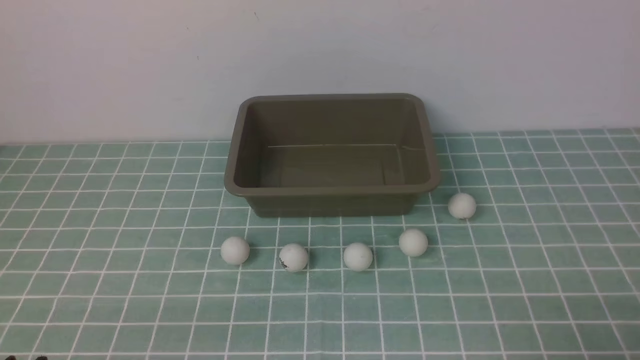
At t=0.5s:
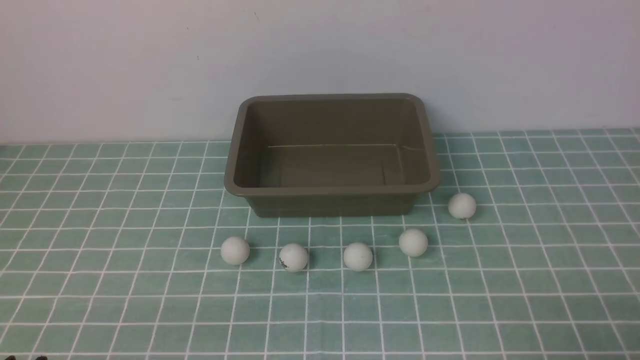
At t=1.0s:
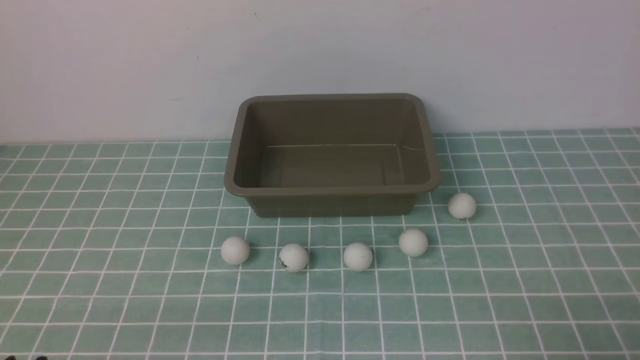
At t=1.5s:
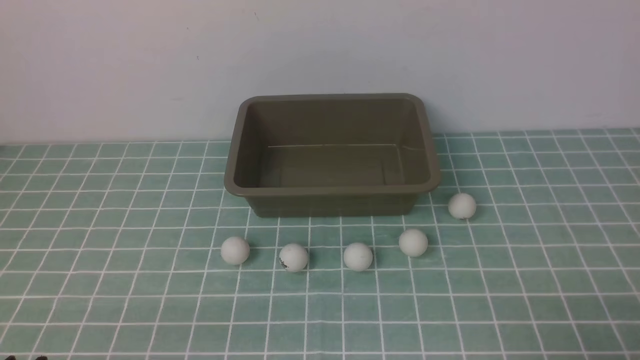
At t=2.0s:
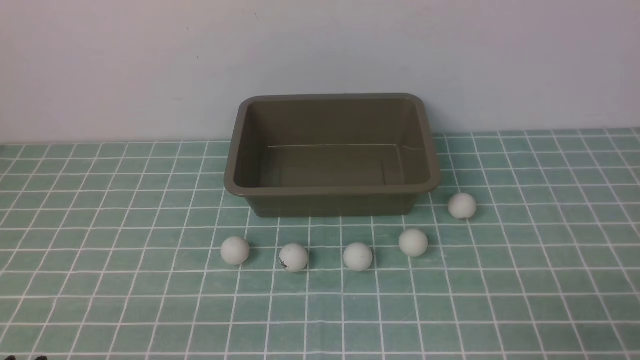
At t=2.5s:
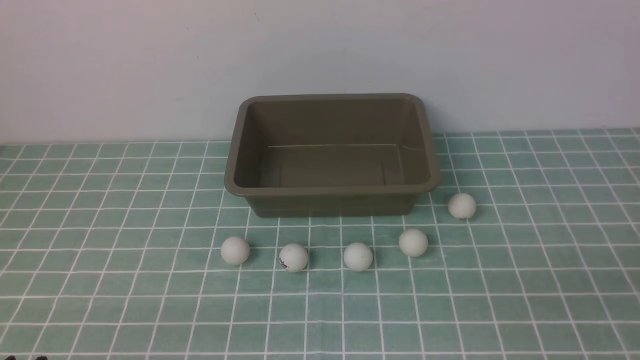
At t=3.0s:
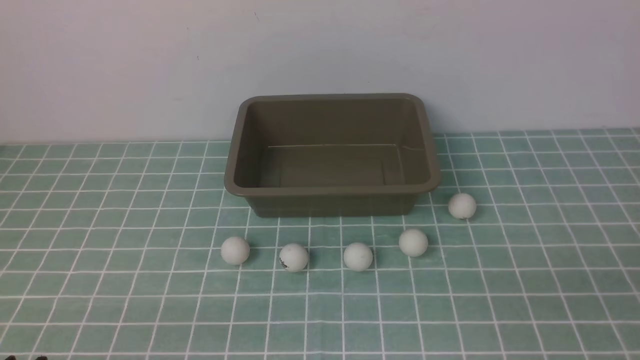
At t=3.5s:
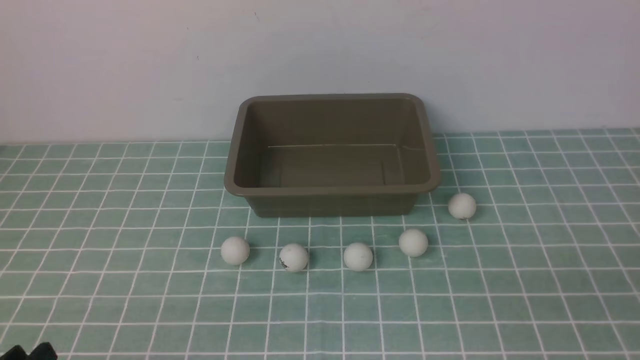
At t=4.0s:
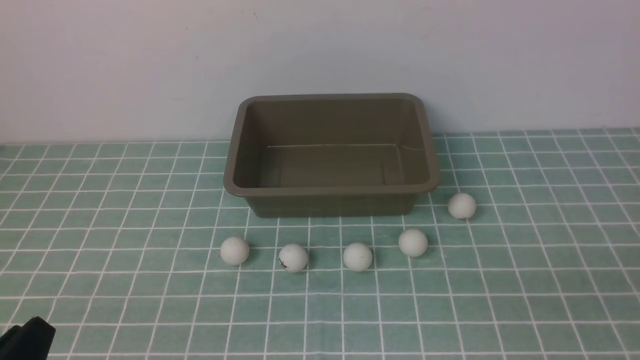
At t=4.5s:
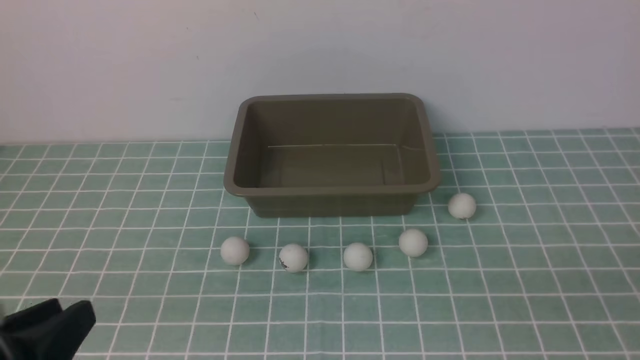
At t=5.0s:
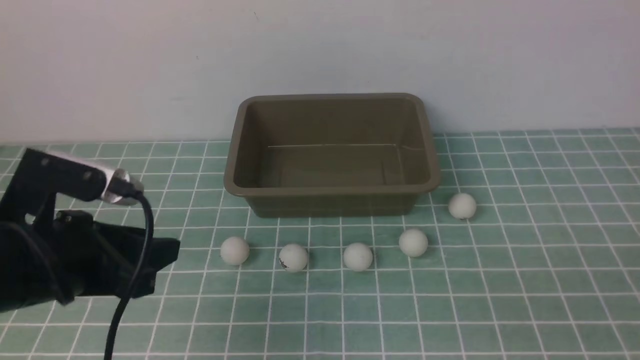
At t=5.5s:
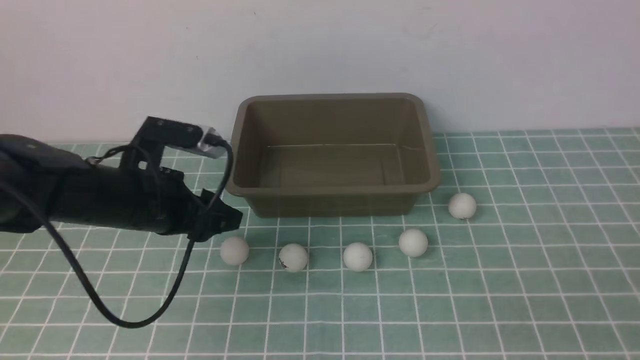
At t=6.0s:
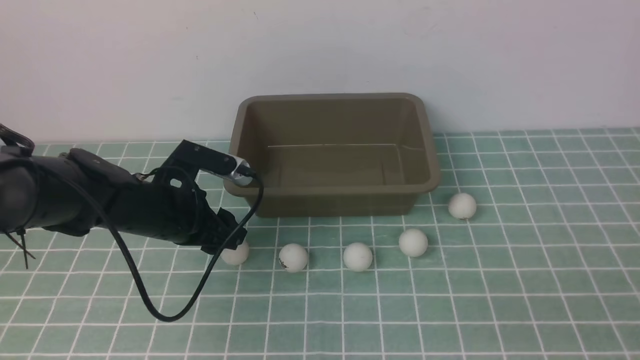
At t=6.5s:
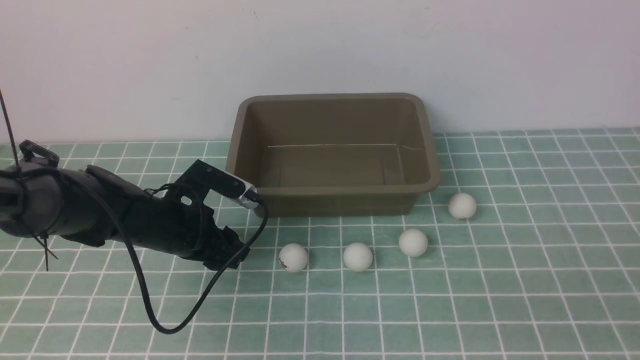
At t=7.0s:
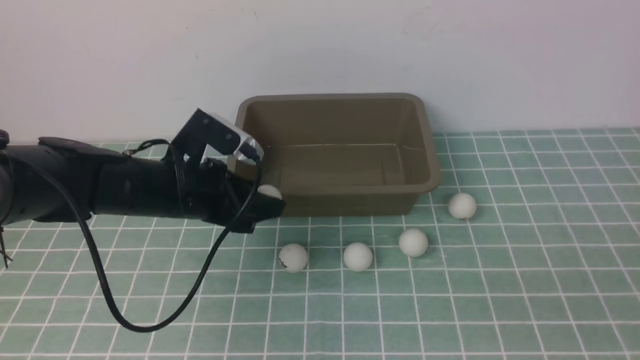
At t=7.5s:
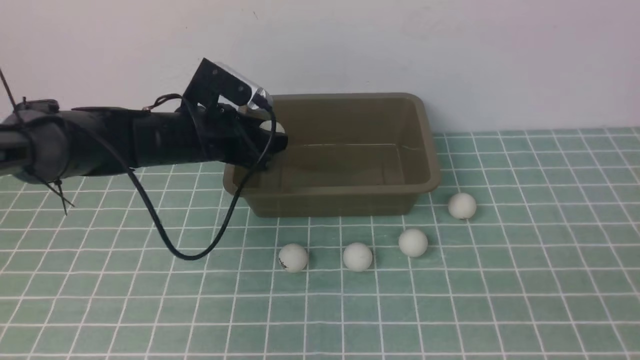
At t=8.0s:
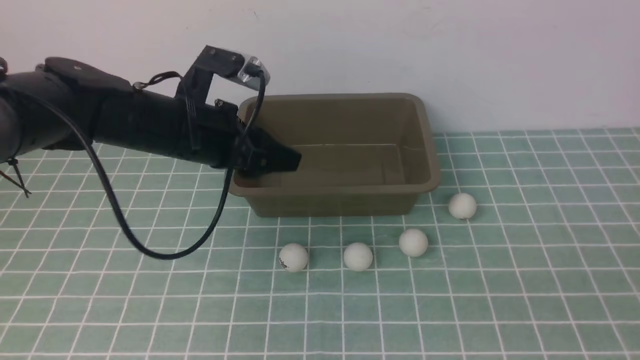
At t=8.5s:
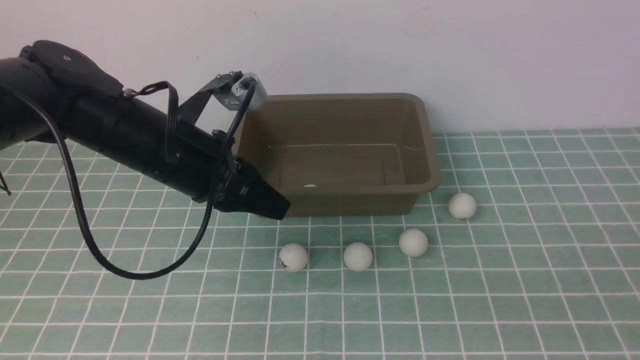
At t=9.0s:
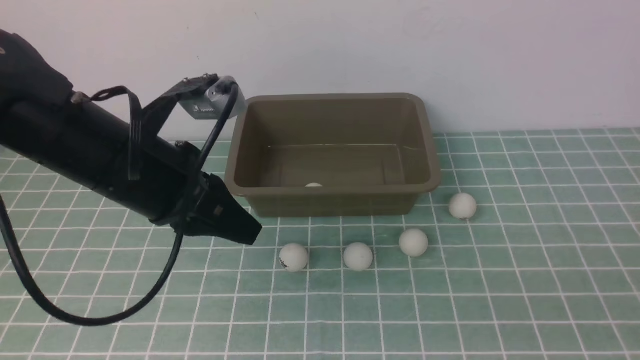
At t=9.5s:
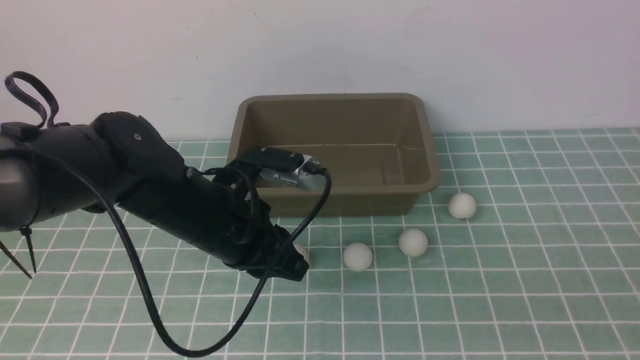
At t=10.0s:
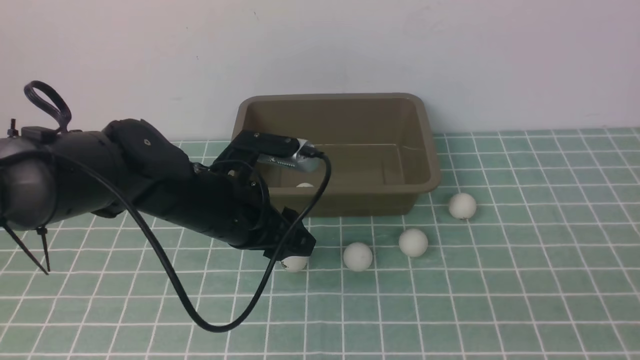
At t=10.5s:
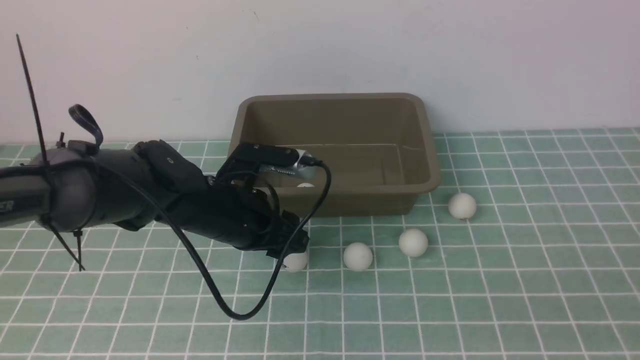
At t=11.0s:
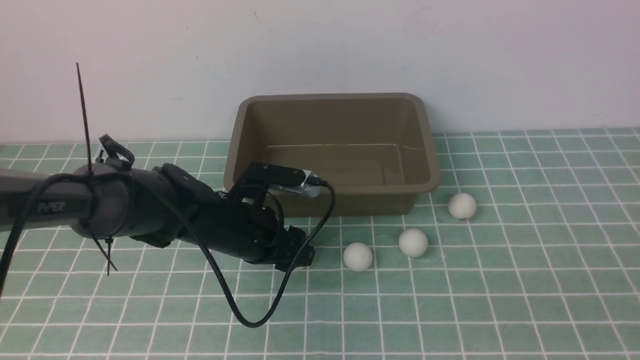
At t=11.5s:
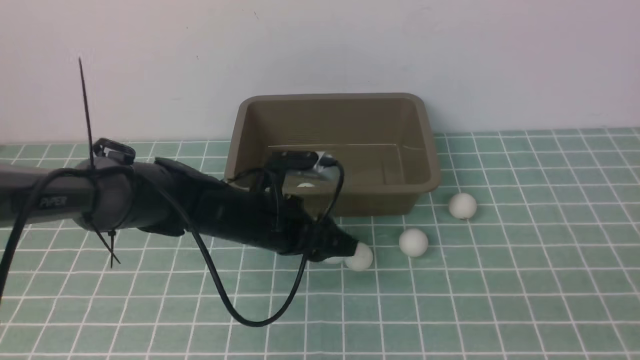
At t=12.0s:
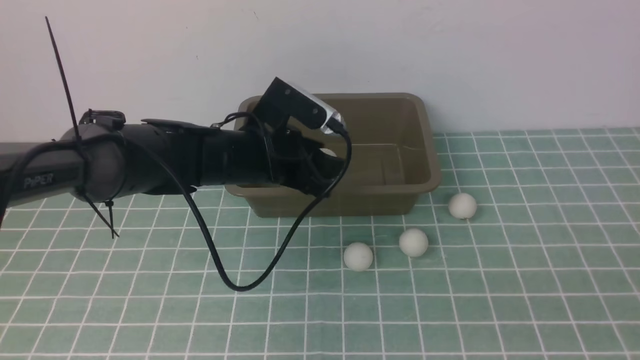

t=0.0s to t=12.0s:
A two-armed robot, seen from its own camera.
Step, t=0.0s to t=6.5s: use the left arm to clamp the table tennis ball closest to it.
Step, t=7.0s to t=7.5s: use the left arm to put the table tennis ball into the box.
Step, t=8.0s to t=11.5s: use the left arm to clamp the table tennis ball closest to it.
t=4.0s to t=6.0s: The left gripper heads forward, covering some 30 cm.
t=6.0s to t=8.0s: The left gripper moves upward, about 10 cm.
t=8.0s to t=10.0s: The left gripper travels downward by some 5 cm, and closes and opens again.
t=10.0s to t=12.0s: The left gripper is displaced forward by about 5 cm.

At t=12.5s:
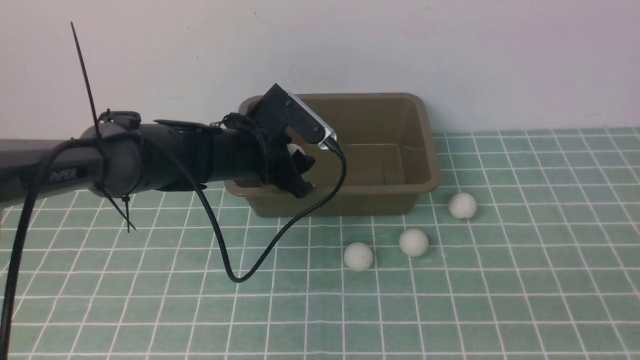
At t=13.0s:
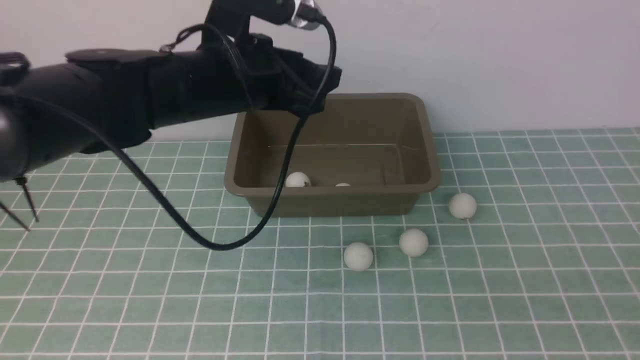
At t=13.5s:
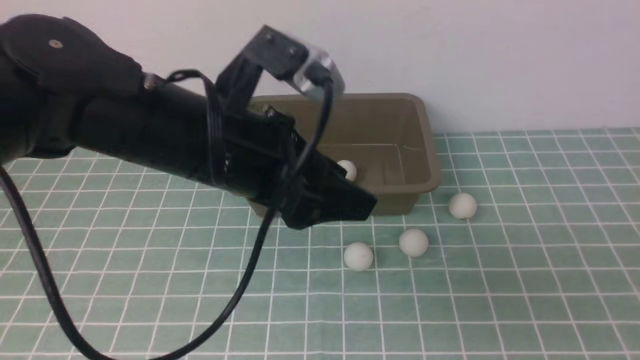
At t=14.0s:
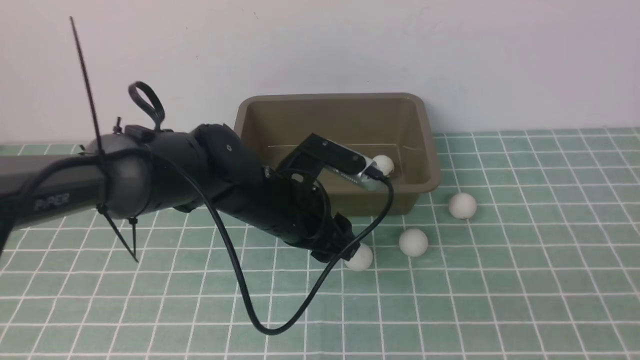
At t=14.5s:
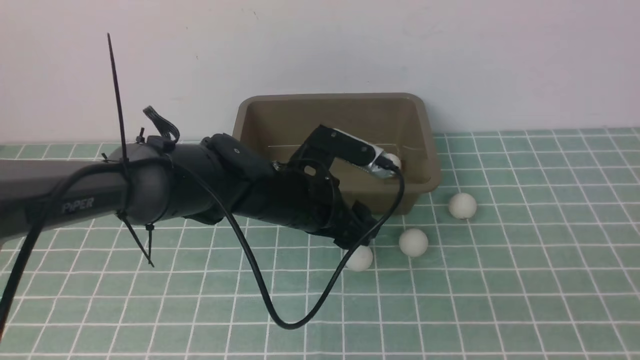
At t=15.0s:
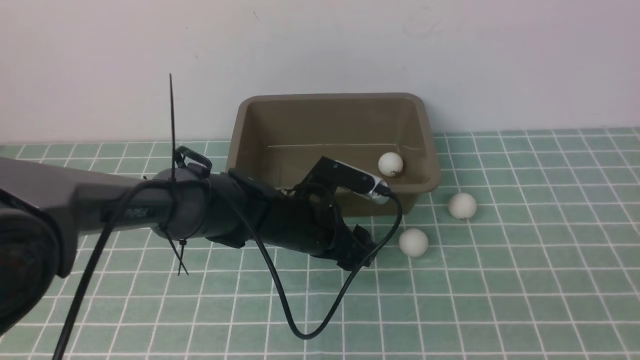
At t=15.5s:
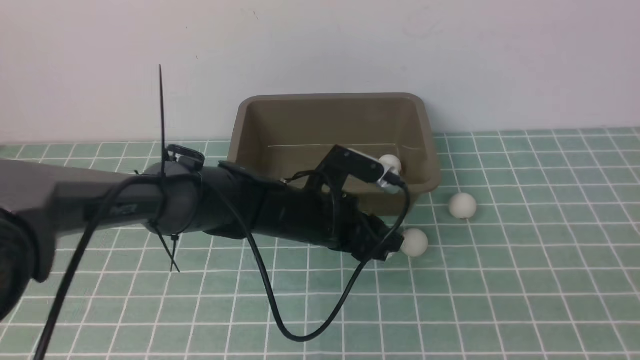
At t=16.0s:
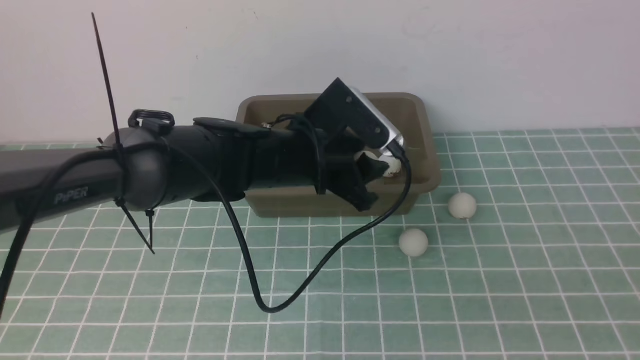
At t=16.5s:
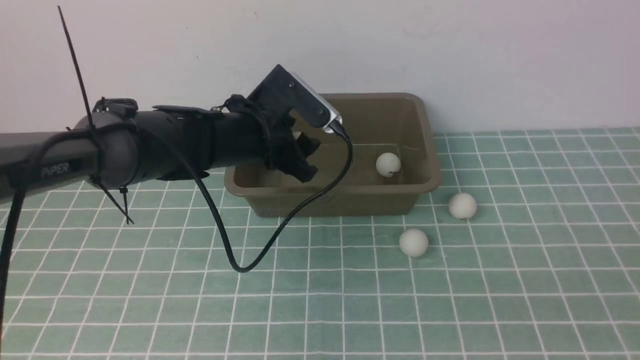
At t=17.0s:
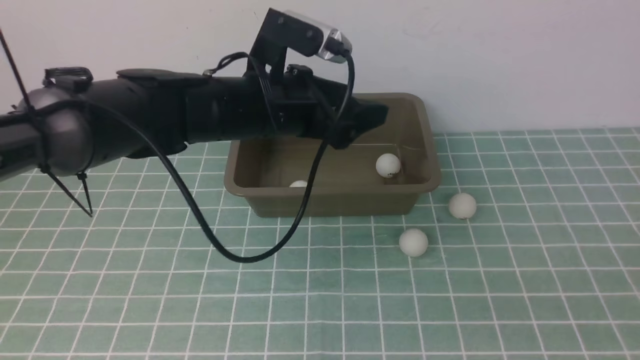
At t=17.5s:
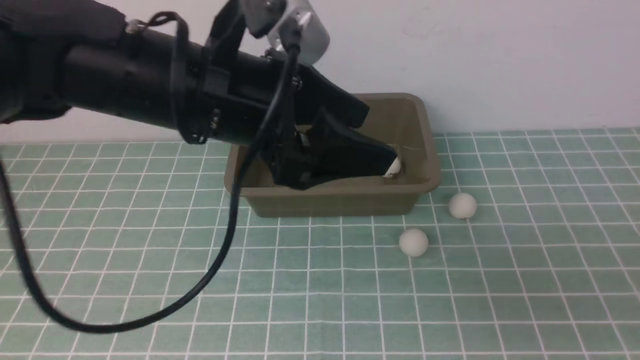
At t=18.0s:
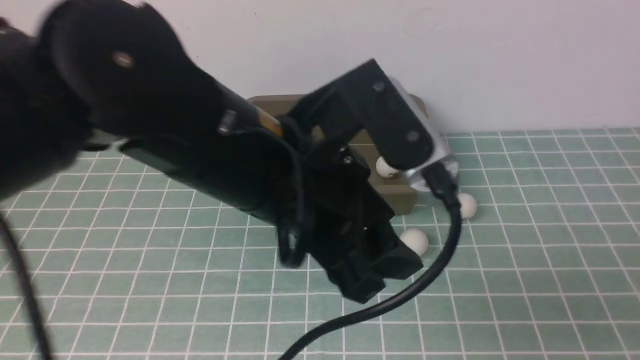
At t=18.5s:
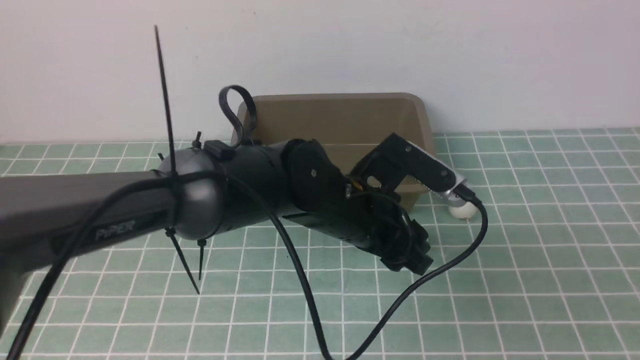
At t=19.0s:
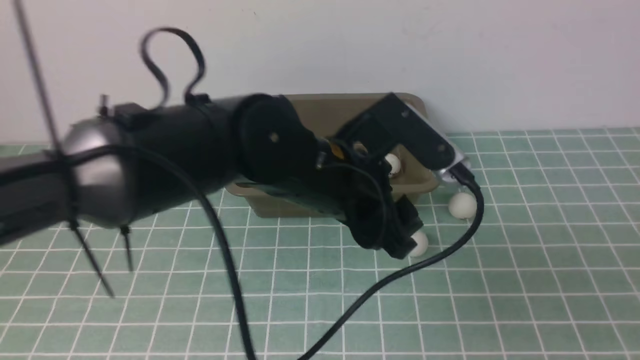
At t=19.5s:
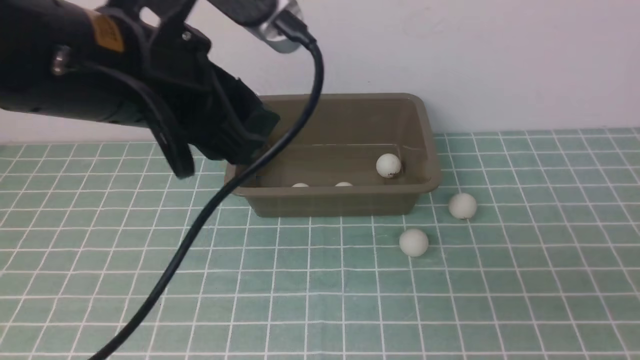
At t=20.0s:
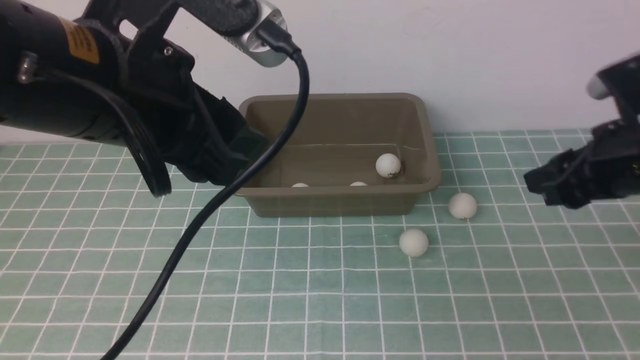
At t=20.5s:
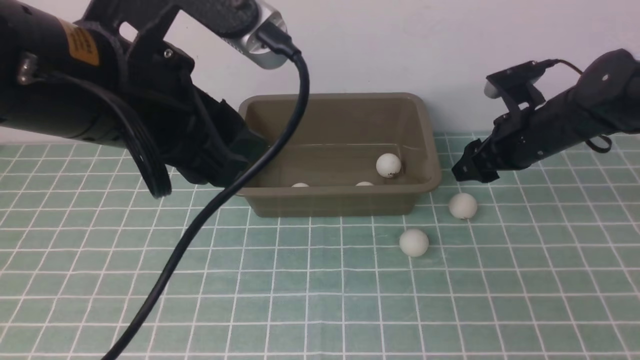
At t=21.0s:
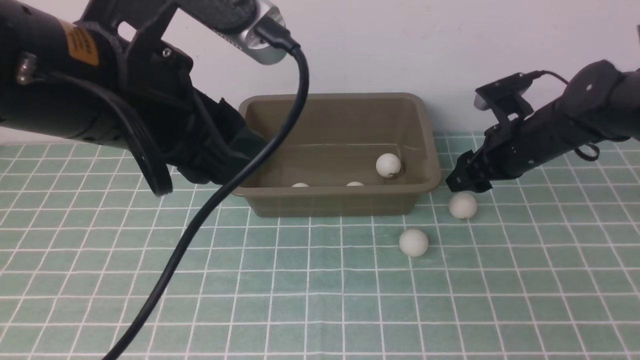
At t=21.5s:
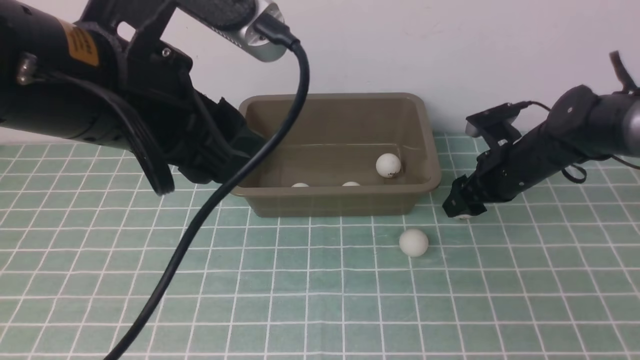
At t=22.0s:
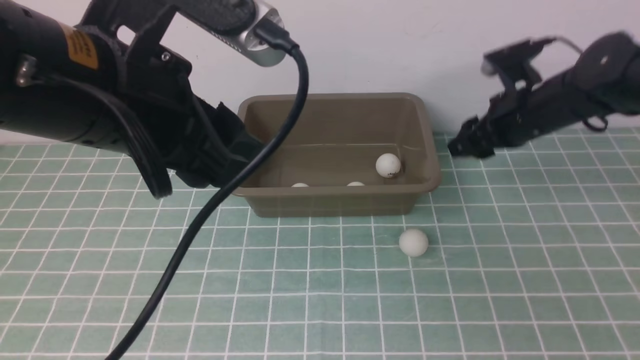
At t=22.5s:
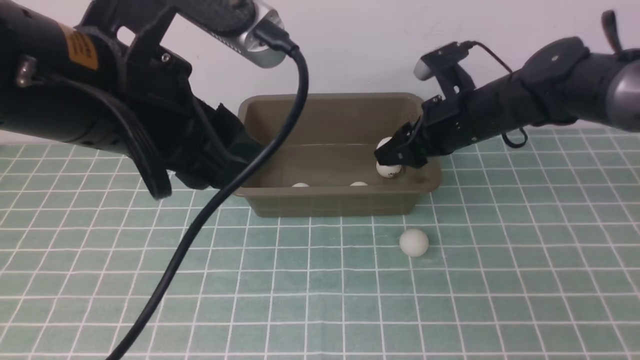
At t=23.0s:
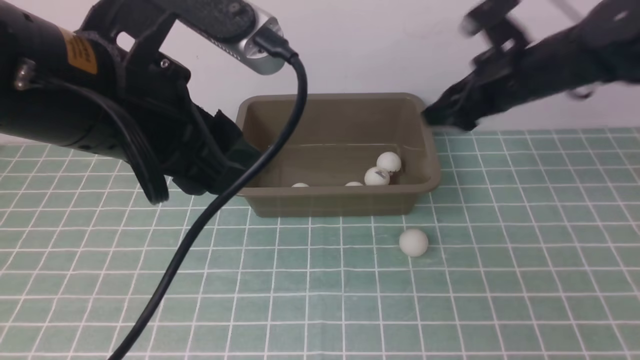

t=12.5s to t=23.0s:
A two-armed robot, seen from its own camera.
Step, t=13.0s to t=15.5s: use the left arm to clamp the table tennis ball closest to it.
Step, t=16.0s to t=16.5s: use the left arm to put the table tennis ball into the box.
Step, t=17.0s to t=21.5s: use the right arm to clamp the table tennis ball closest to it.
t=12.5s to t=14.5s: The left gripper heads to the right and backward, covering some 10 cm, and moves about 10 cm upward and comes back.
t=14.5s to t=16.5s: The left gripper is displaced forward and to the left by some 10 cm.
t=16.5s to t=19.0s: The left gripper goes approximately 15 cm backward, upward and to the right.
t=19.0s to t=21.0s: The left gripper heads to the left, upward and backward, covering roughly 15 cm, while the right gripper moves forward, approximately 40 cm, and opens up.
t=21.0s to t=23.0s: The right gripper goes approximately 15 cm upward.
